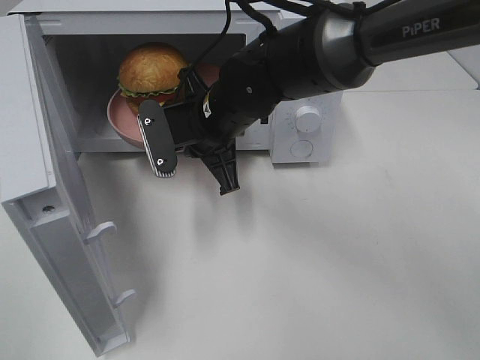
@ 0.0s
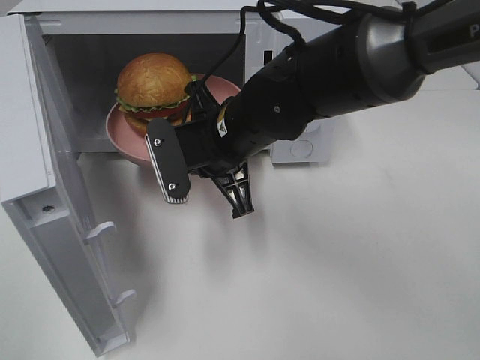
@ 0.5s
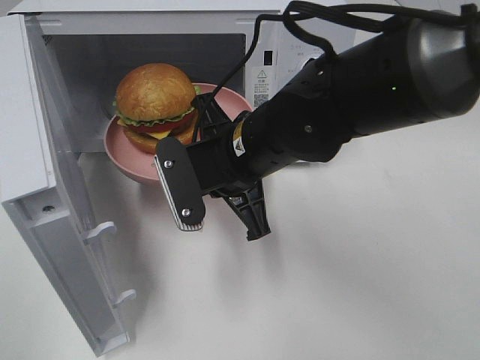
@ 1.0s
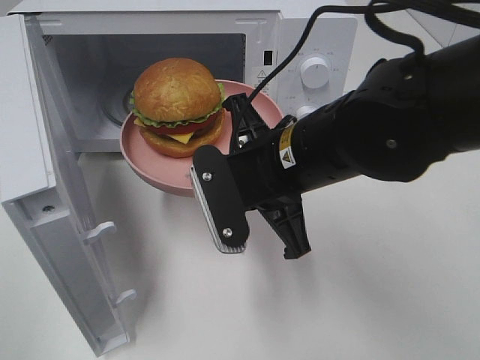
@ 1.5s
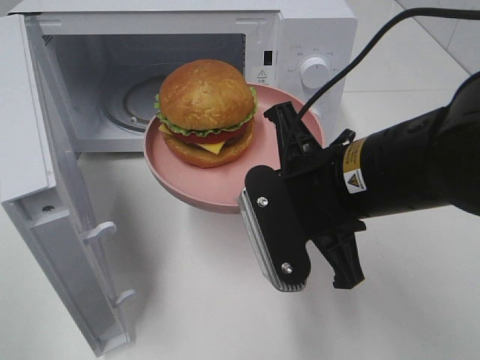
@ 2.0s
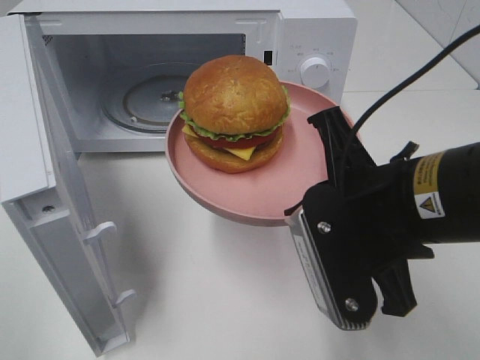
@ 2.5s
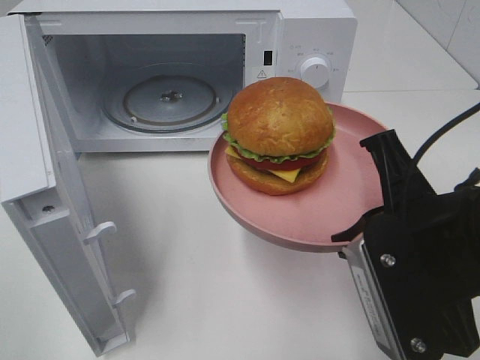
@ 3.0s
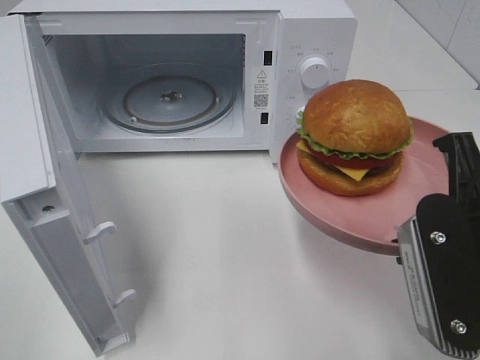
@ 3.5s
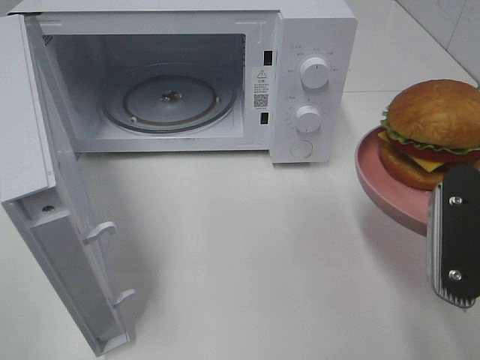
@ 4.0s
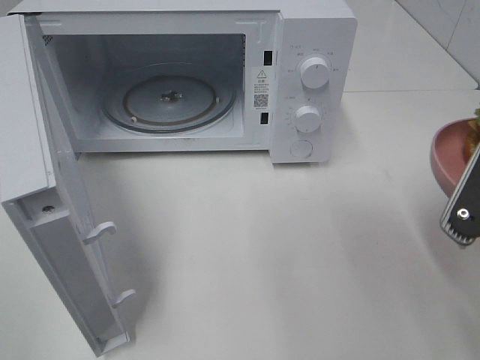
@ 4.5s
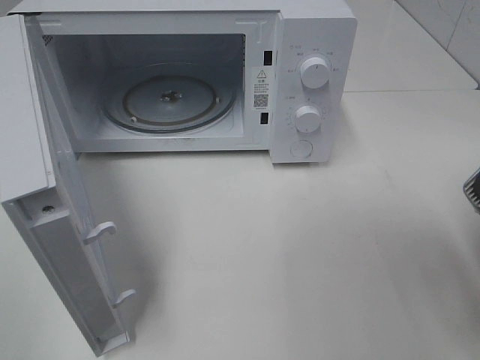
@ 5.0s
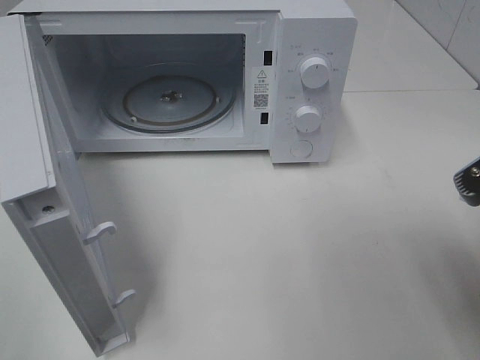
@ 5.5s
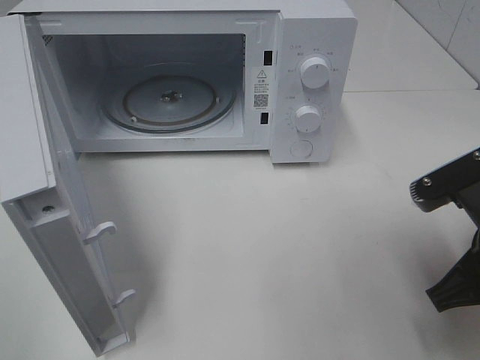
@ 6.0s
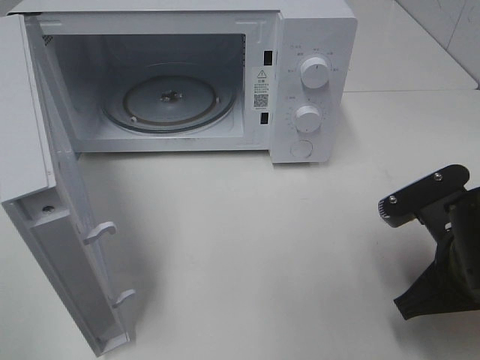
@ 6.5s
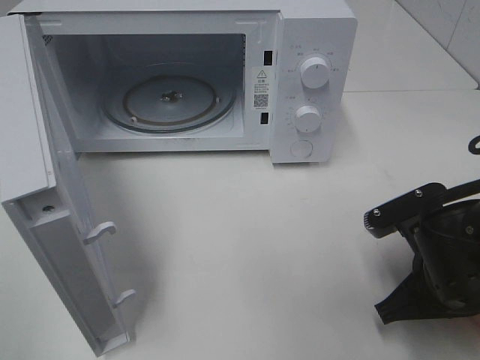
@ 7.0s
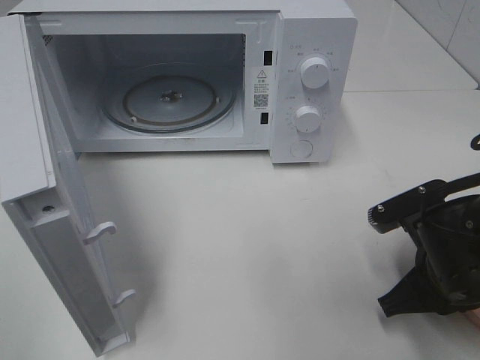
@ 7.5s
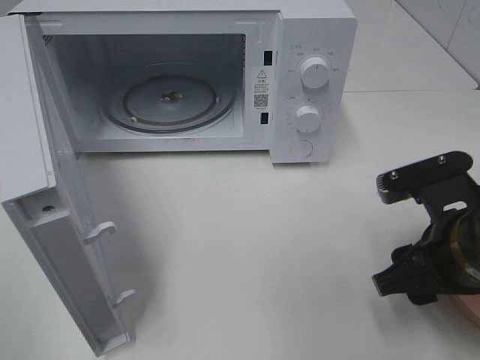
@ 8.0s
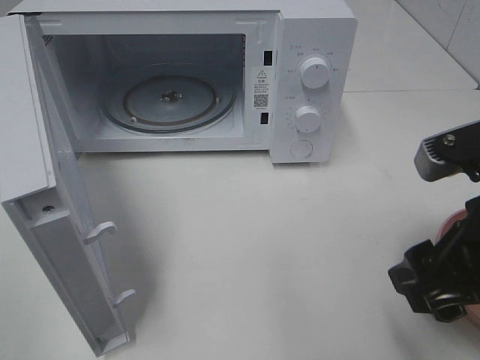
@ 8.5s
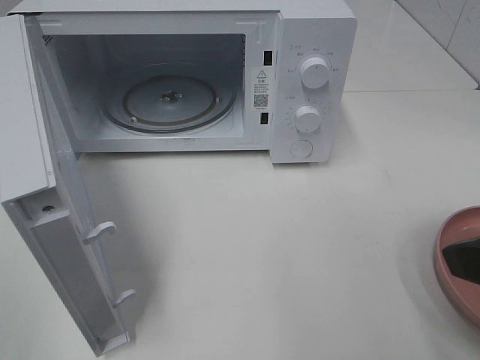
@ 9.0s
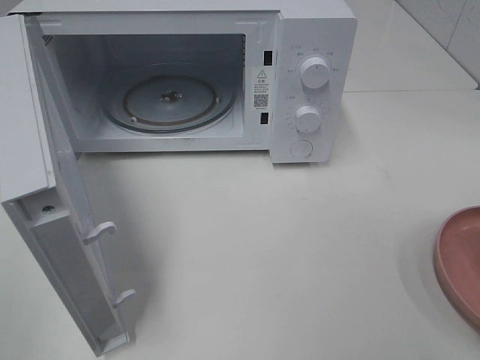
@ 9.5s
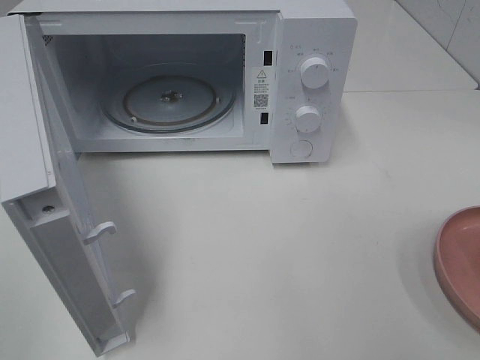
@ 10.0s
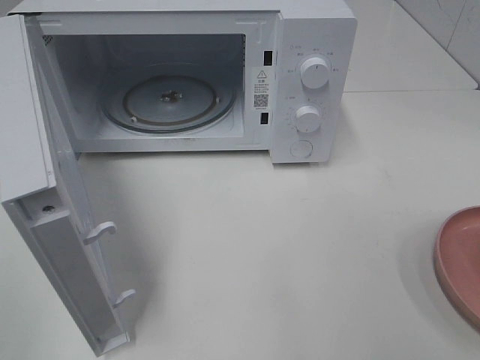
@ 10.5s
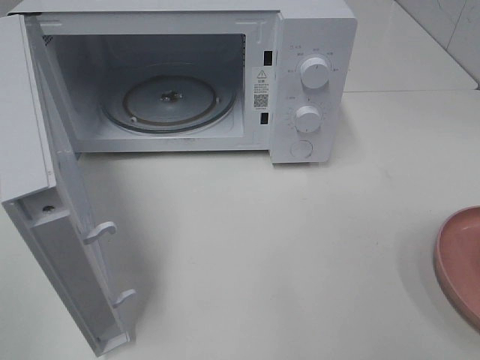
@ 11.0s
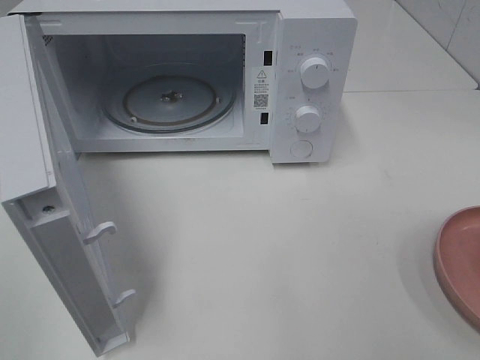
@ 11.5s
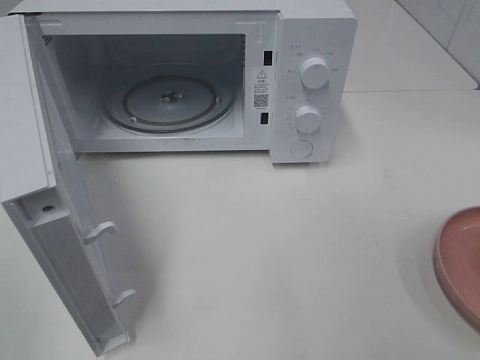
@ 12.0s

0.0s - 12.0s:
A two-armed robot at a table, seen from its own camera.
Task of the whole recording: Heat the burger.
Step, 0.0s - 7.5s: Right hand: place the plate on the table.
0.0s - 2.0s: The right gripper travels backward and to the right by roughly 20 cm.
2.0s - 4.0s: The right gripper shifts approximately 15 cm to the right and backward.
4.0s - 6.0s: The right gripper is displaced downward by some 5 cm.
6.0s - 8.0s: The right gripper opens up.
8.0s - 10.0s: The right gripper is displaced backward, upward and to the right by approximately 20 cm.

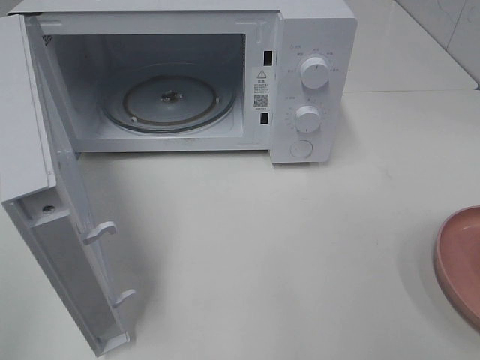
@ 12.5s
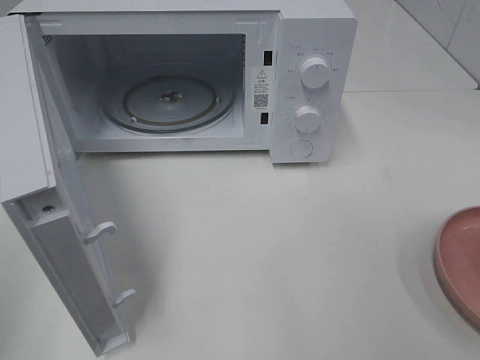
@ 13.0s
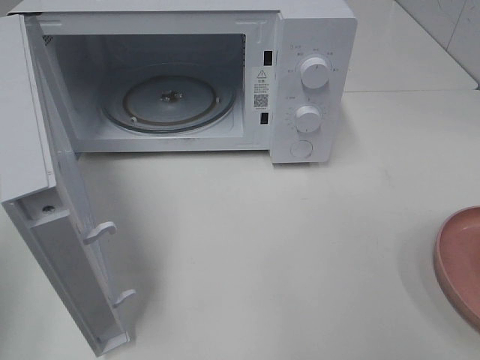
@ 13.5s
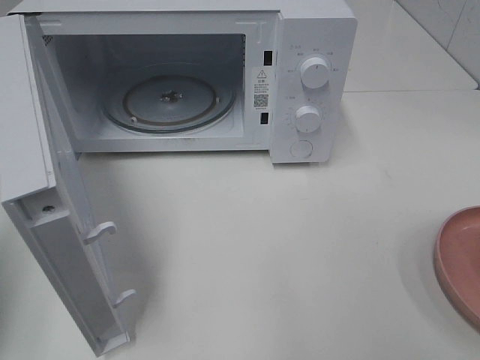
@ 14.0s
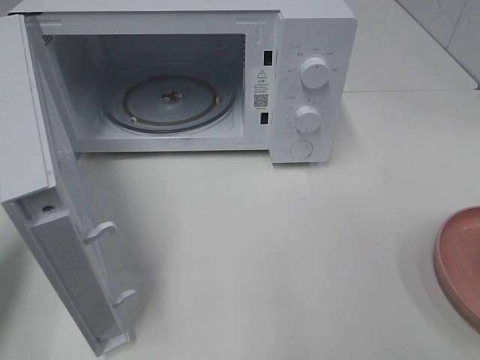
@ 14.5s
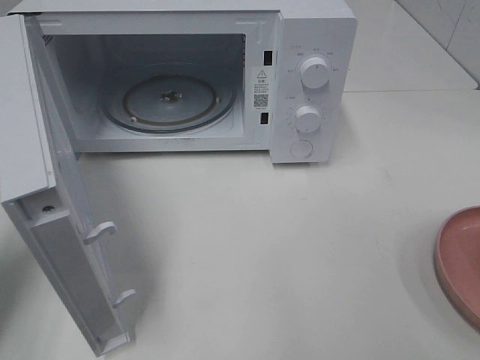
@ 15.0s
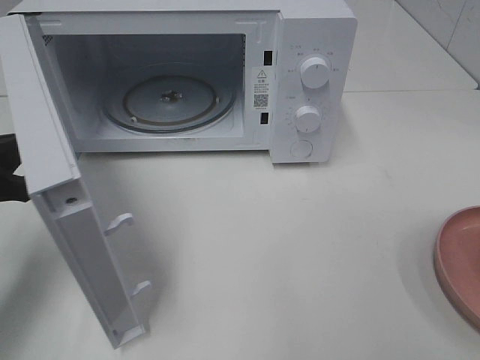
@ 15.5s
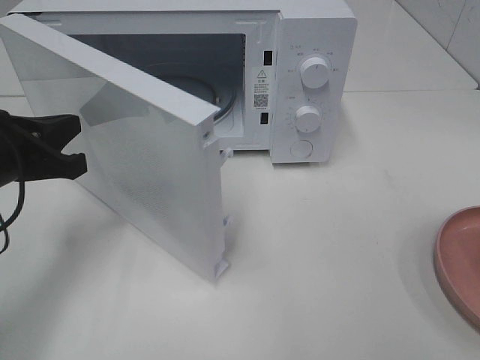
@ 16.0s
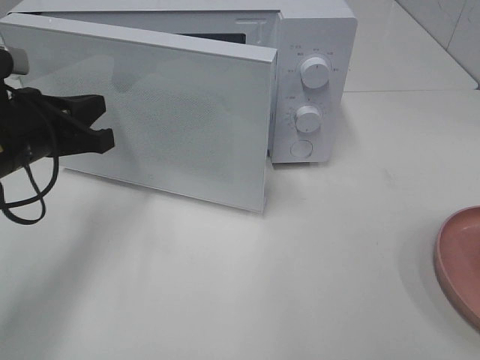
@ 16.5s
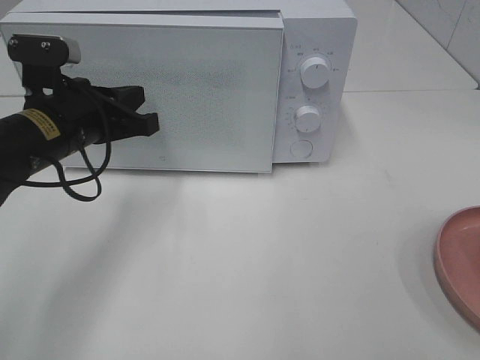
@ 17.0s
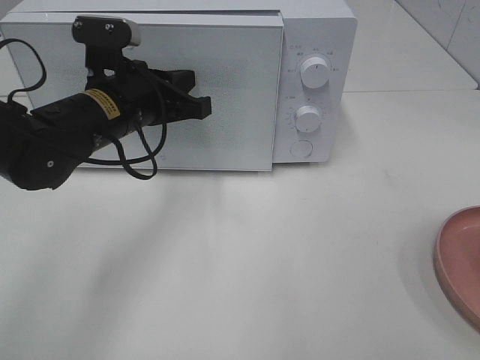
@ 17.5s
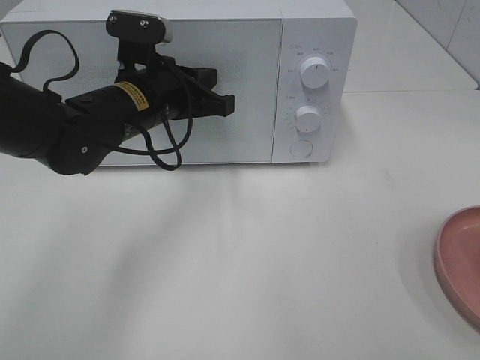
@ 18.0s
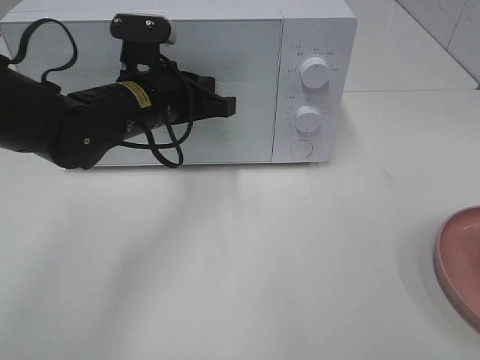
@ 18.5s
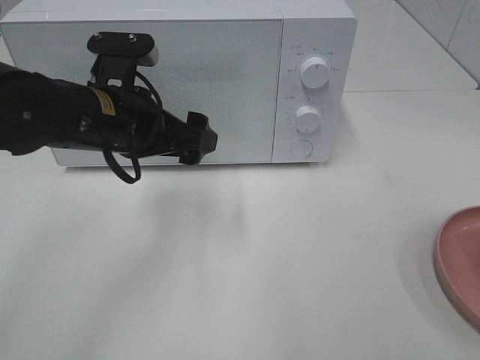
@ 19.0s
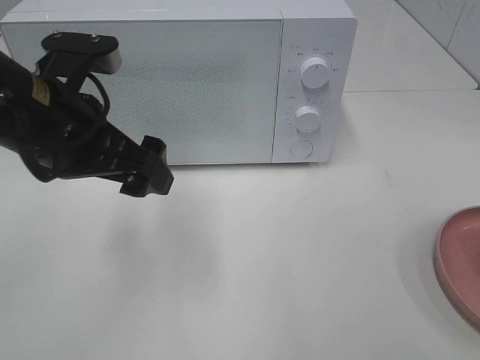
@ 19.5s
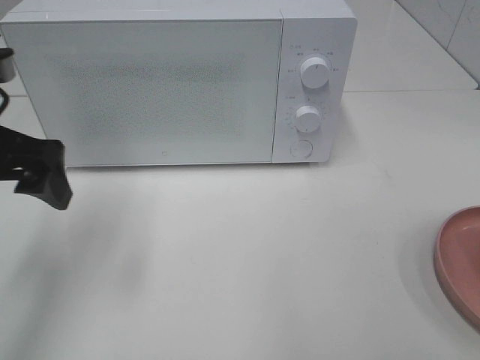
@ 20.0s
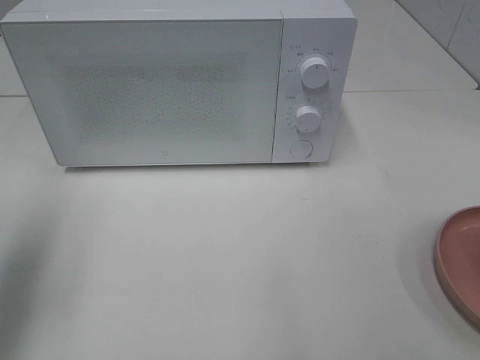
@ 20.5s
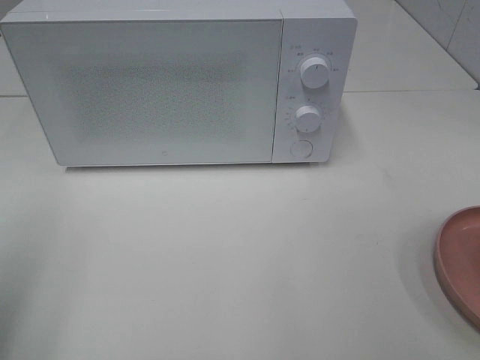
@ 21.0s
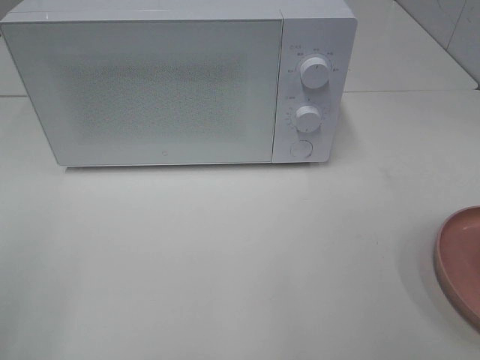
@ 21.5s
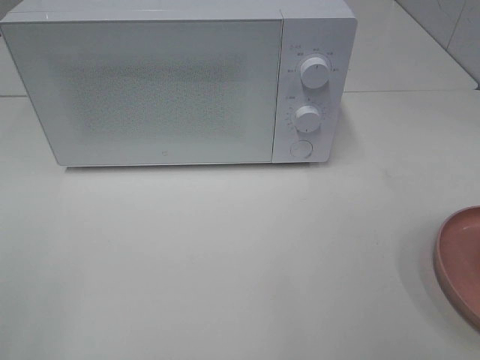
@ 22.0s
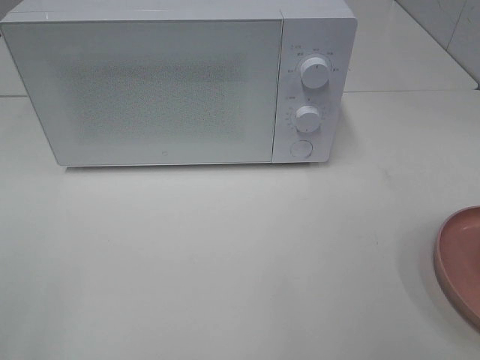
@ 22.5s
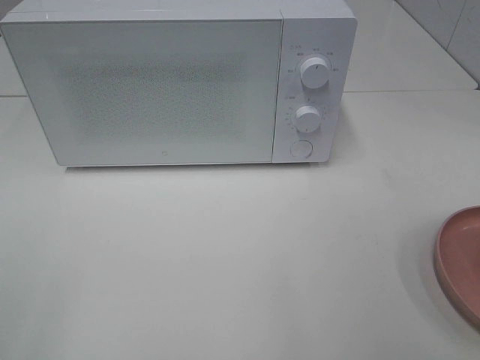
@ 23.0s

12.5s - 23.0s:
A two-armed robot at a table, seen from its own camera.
Task of the whole recording: Heat the burger.
Step, 12.5s - 18.5s: Left hand: close the microwave door.
12.5s - 14.5s: The left gripper shifts roughly 20 cm forward and downward, and closes.
14.5s - 16.5s: The left gripper goes about 15 cm to the right, forward and downward.
16.5s - 19.0s: The left gripper moves to the right, roughly 10 cm, and opens its fingers.
19.0s - 21.0s: The left gripper goes approximately 30 cm to the left, backward and upward.
21.0s - 23.0s: The left gripper shifts approximately 10 cm backward.

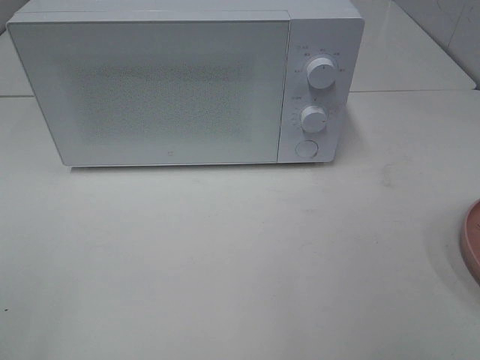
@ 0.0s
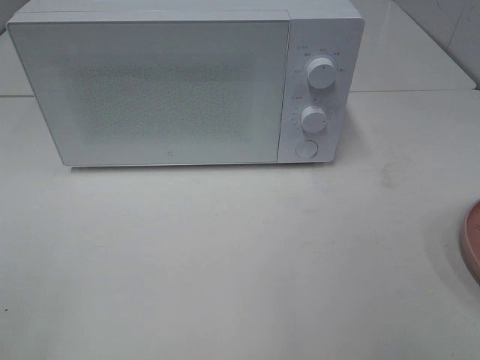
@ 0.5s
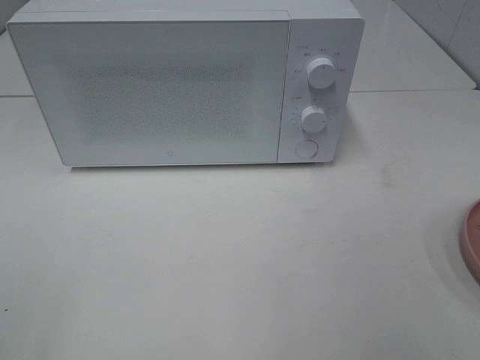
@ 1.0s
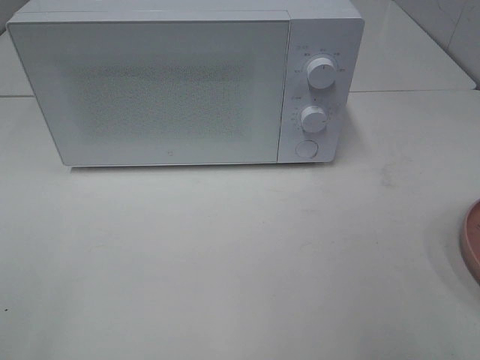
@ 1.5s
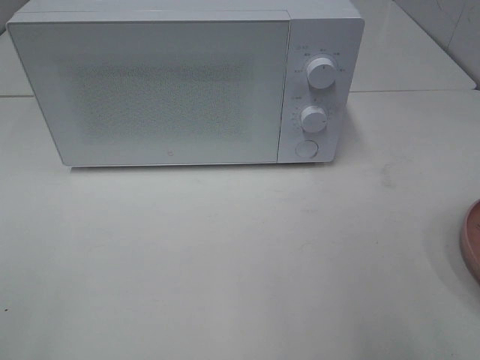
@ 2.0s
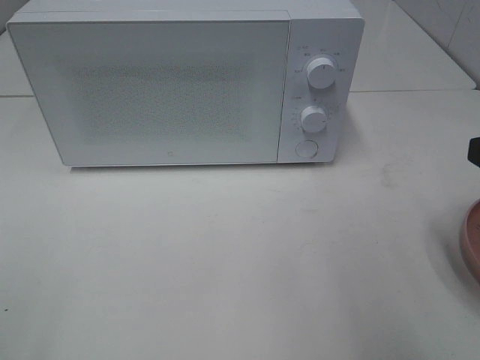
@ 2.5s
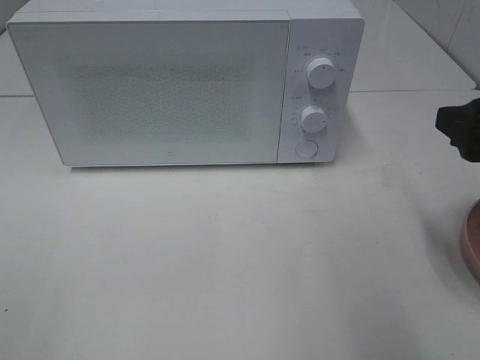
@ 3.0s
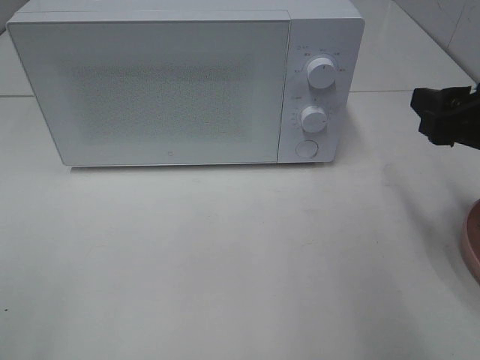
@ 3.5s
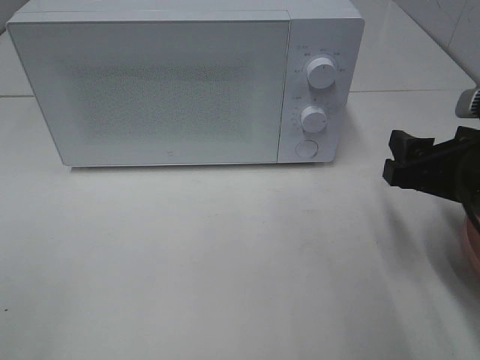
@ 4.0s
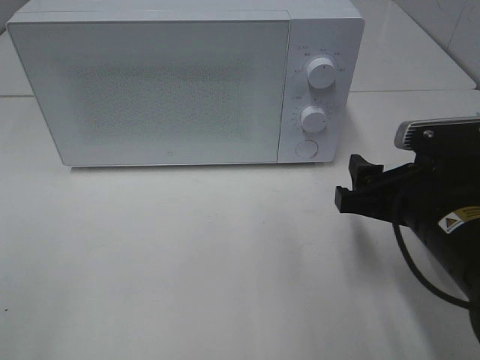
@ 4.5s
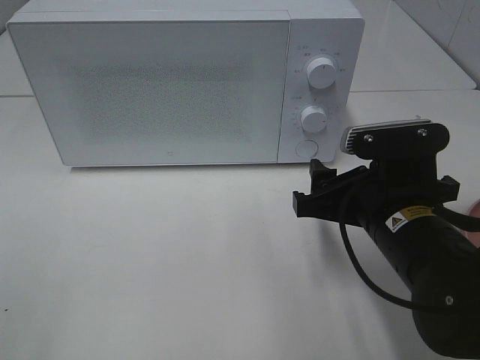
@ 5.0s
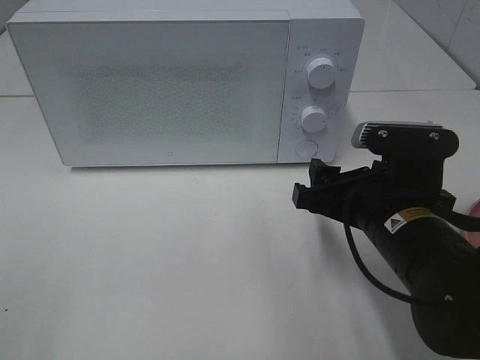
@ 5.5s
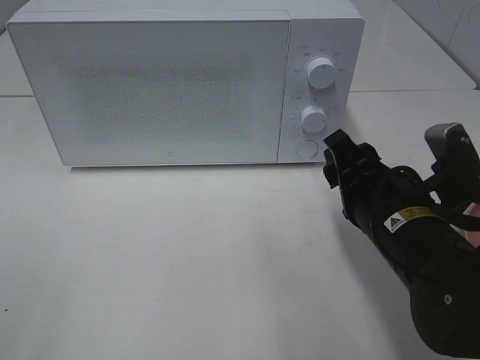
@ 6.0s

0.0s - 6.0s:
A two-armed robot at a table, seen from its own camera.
Task of the whole recording: Heat the burger.
2.0s - 4.0s: The right gripper shifts approximately 15 cm downward and forward.
4.0s - 6.0s: The right gripper heads to the left, covering about 10 cm.
